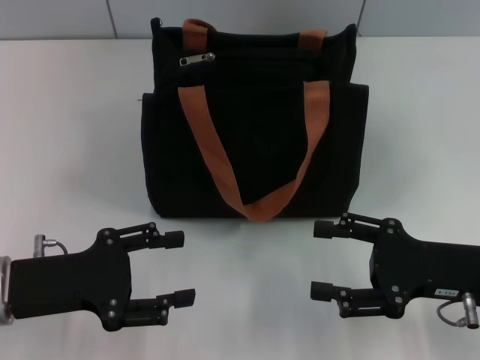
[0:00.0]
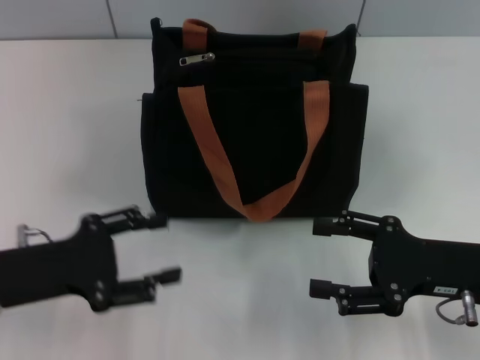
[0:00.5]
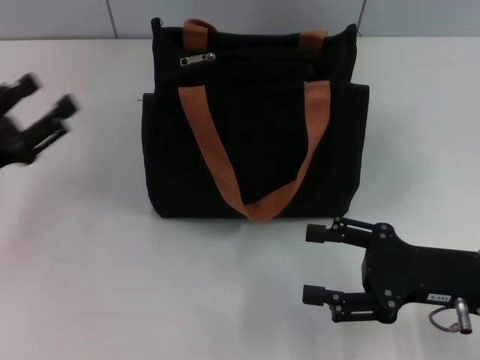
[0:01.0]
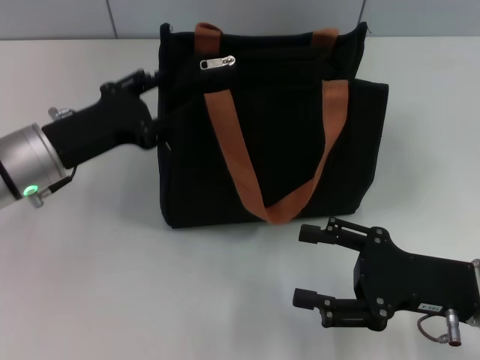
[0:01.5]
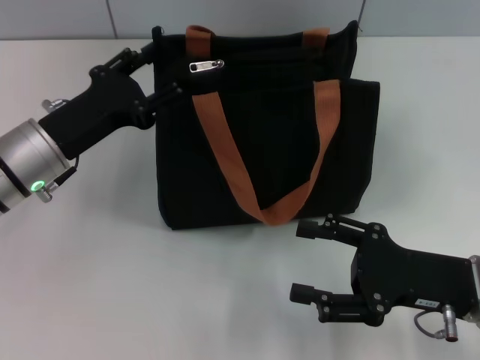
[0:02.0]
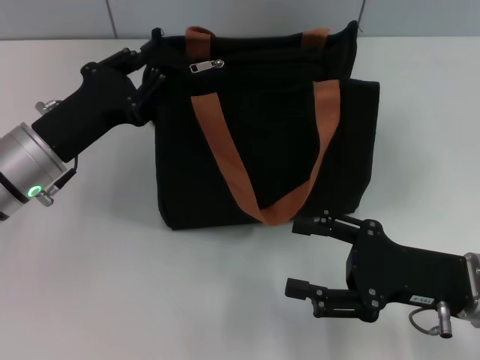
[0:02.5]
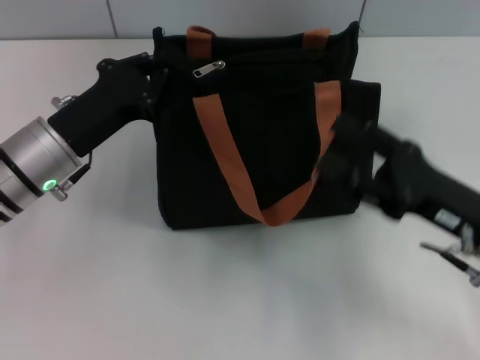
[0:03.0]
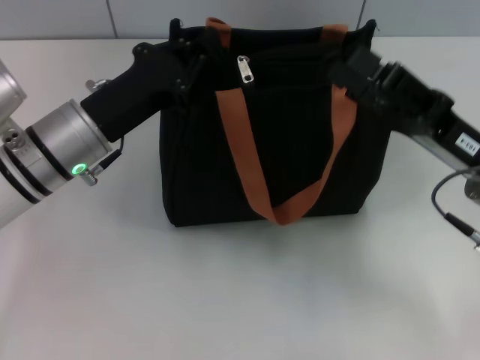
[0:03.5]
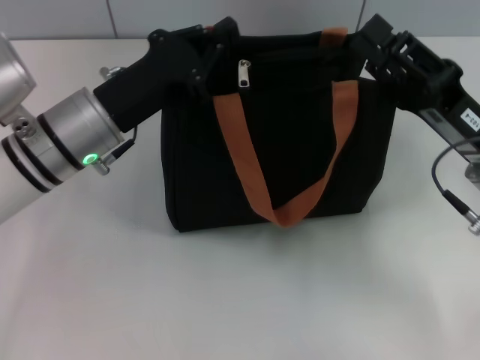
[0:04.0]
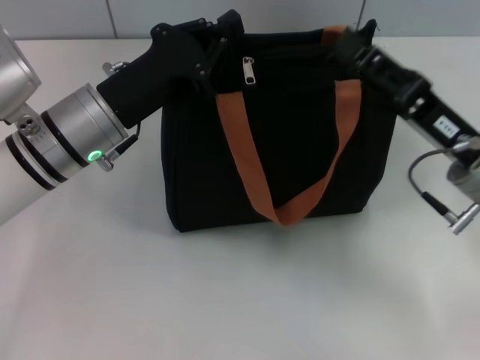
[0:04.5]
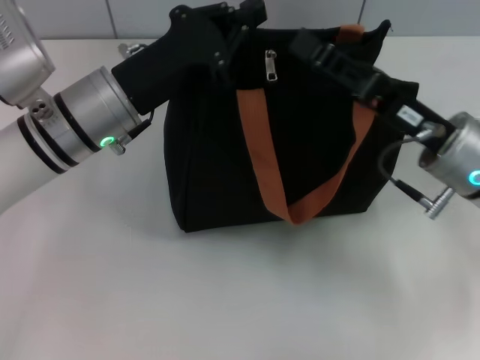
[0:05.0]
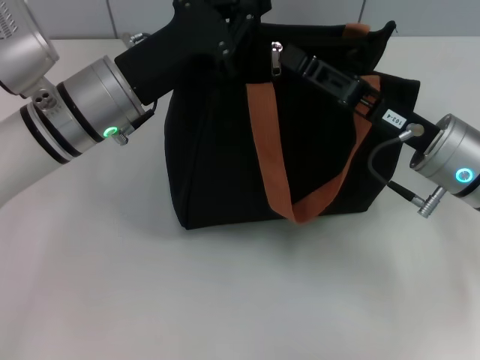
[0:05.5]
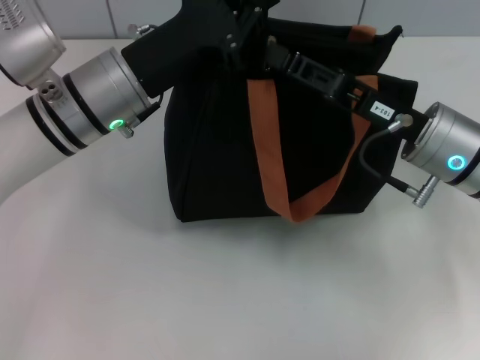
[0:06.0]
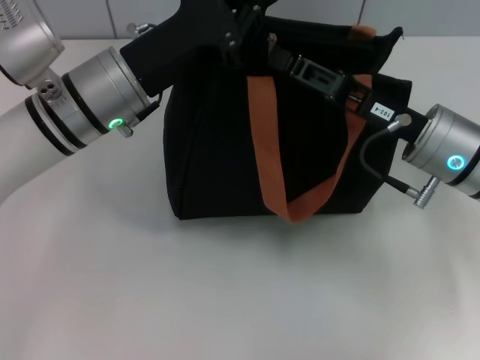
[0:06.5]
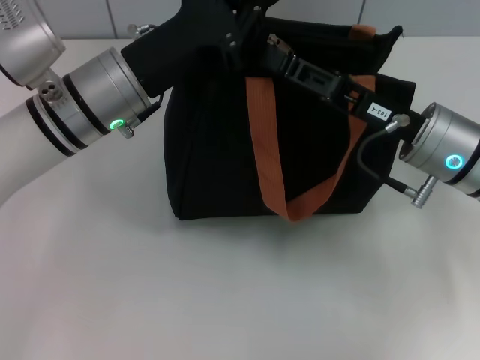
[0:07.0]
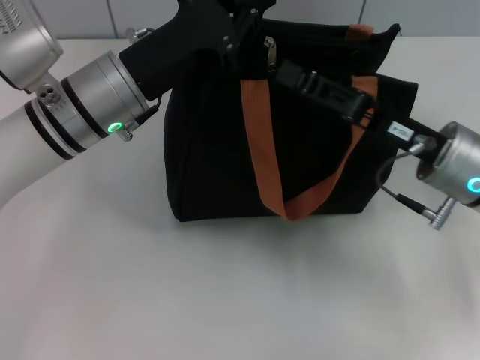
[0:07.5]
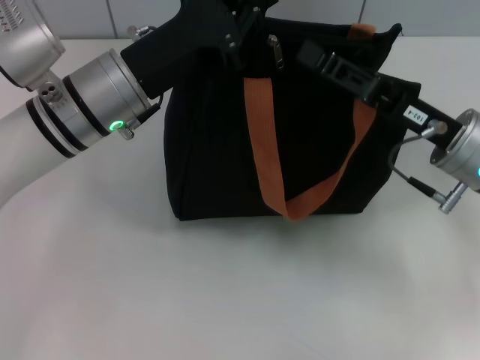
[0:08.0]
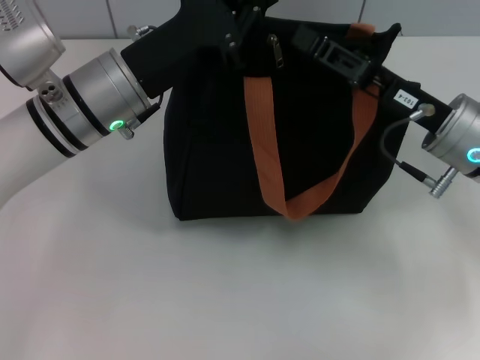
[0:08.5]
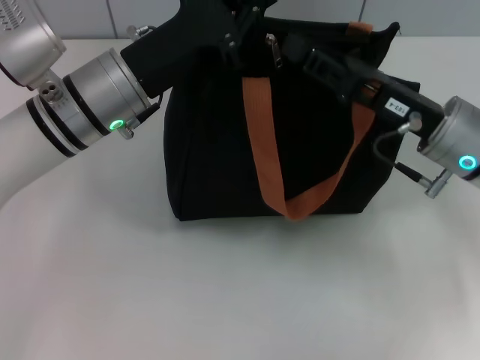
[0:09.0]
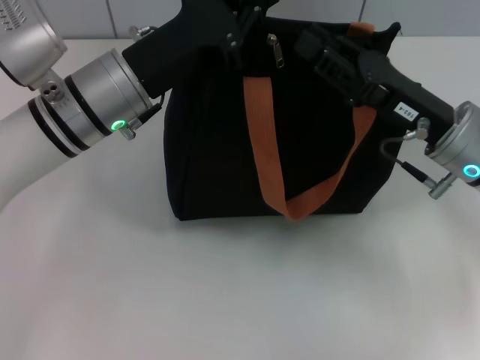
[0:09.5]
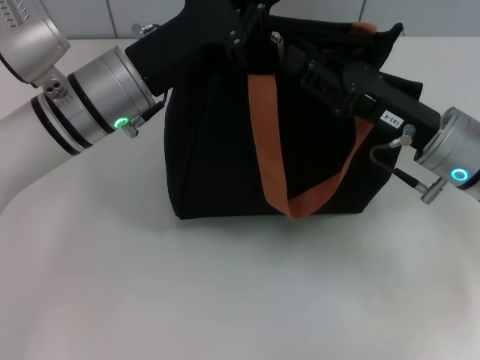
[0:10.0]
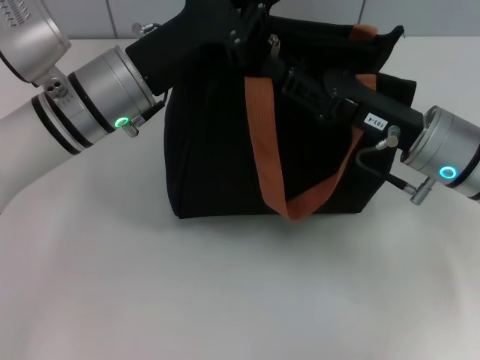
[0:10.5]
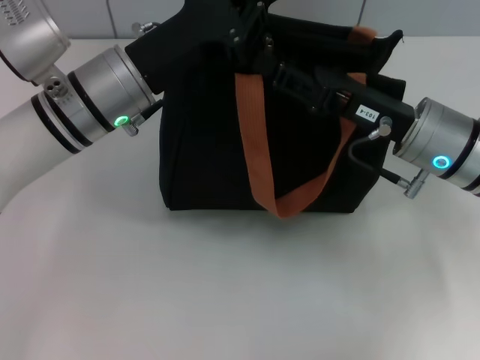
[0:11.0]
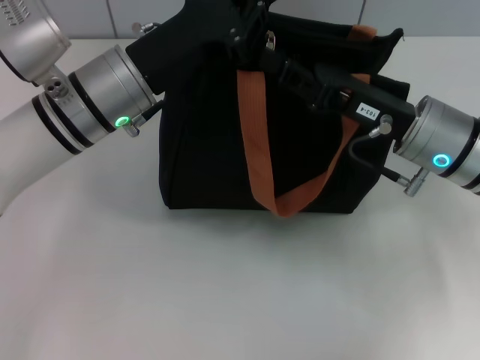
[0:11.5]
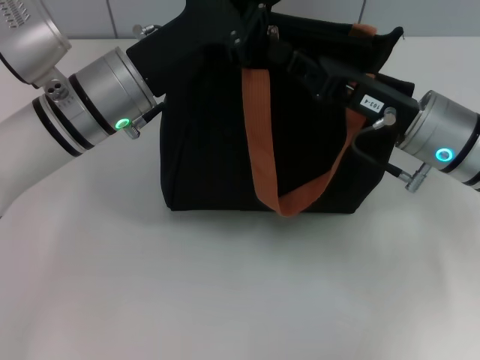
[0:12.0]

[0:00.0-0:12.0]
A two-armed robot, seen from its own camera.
0:00.0 to 0:02.0: The left gripper shifts approximately 10 cm forward.
0:02.0 to 0:04.0: The right gripper moves forward, some 5 cm. Meanwhile the left gripper heads to the right, covering some 5 cm, and closes.
0:04.0 to 0:06.0: The right gripper moves roughly 5 cm.
0:06.0 to 0:08.0: The grippers stay close to where they were, moving slightly.
0:10.0 to 0:12.0: The right gripper closes up.

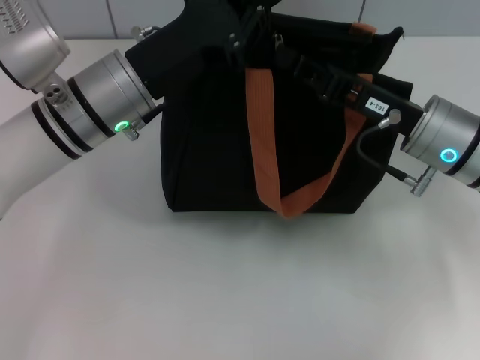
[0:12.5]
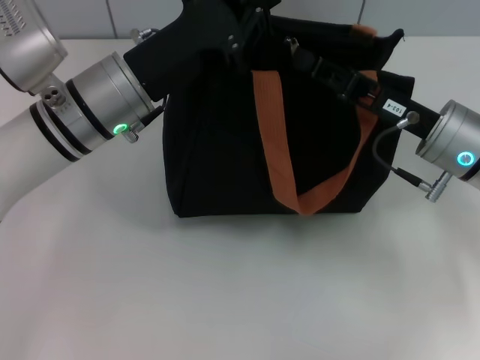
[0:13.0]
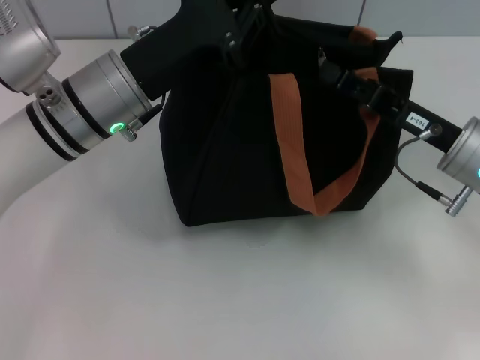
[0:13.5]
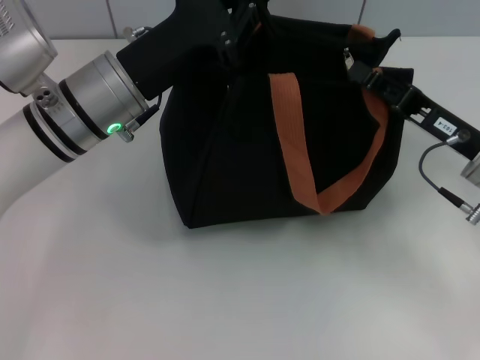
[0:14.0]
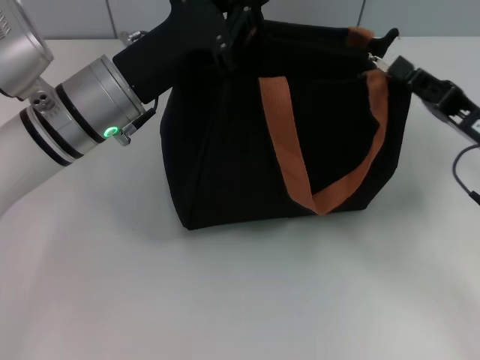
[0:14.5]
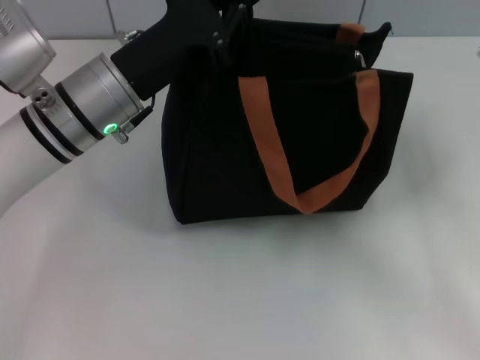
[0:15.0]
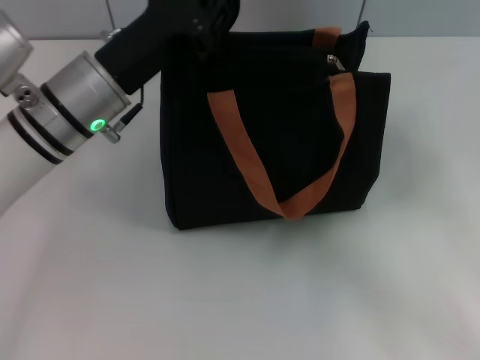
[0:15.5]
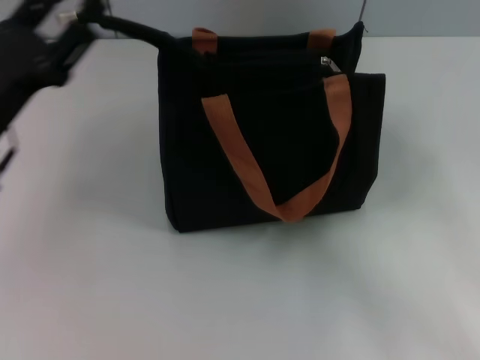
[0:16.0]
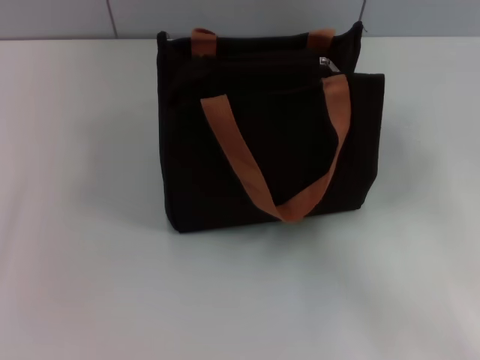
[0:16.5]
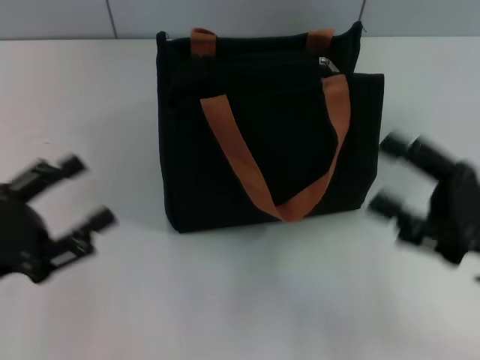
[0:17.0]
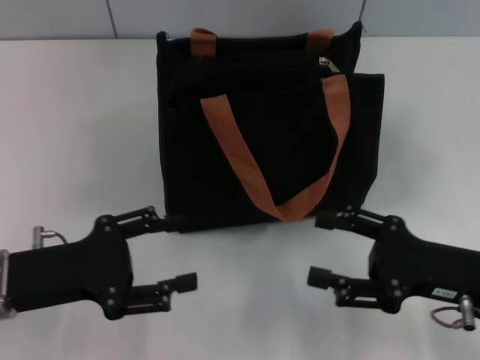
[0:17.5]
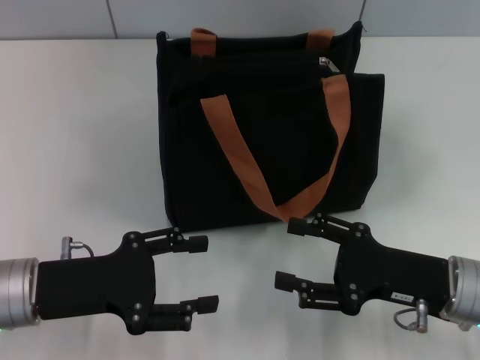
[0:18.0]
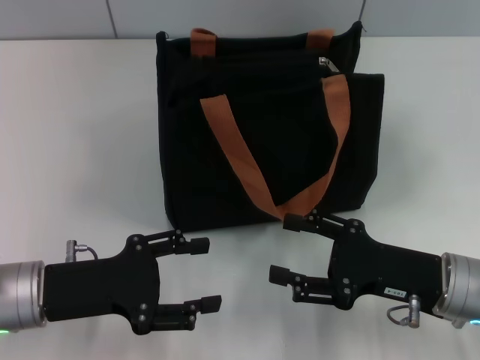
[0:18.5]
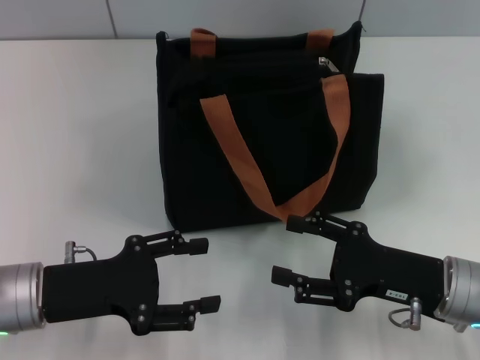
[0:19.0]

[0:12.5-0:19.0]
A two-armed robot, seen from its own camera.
Step, 0:12.5 to 0:14.5: Pull up the zipper with your right hand.
Step, 0:15.0 to 0:16.0: Grab the zipper with your left hand.
0:12.5 to 0:14.5: The right gripper travels to the right by some 10 cm.
0:14.5 to 0:17.0: The left gripper travels backward and to the left by approximately 20 cm, and opens its fingers, while the right gripper shifts approximately 10 cm backward, and opens its fingers.
0:17.0 to 0:19.0: The left gripper is displaced to the right by some 5 cm, while the right gripper is displaced downward and to the left by approximately 5 cm.

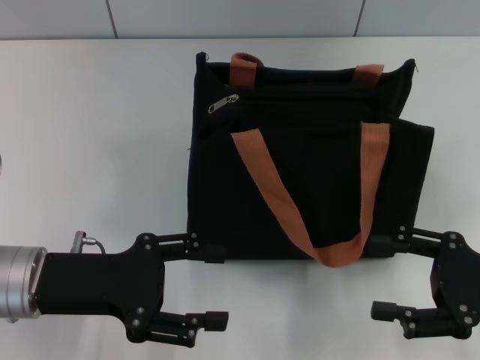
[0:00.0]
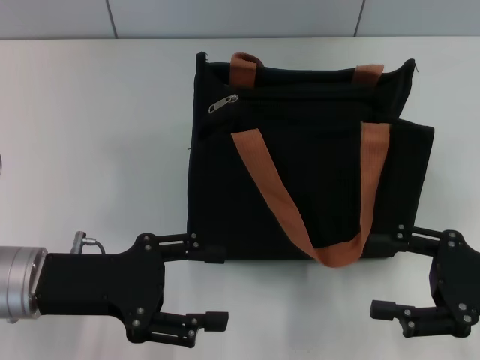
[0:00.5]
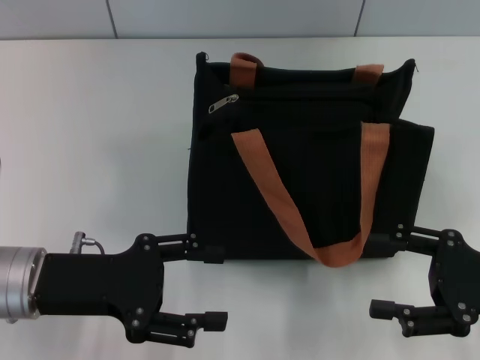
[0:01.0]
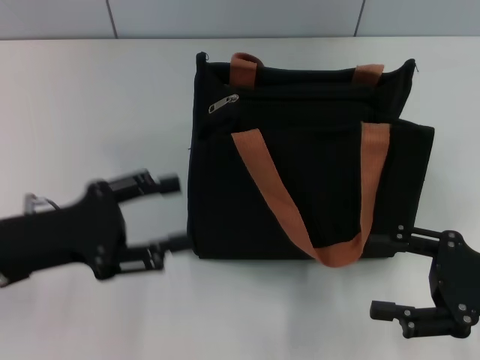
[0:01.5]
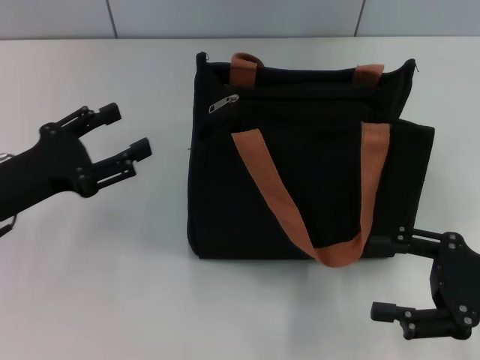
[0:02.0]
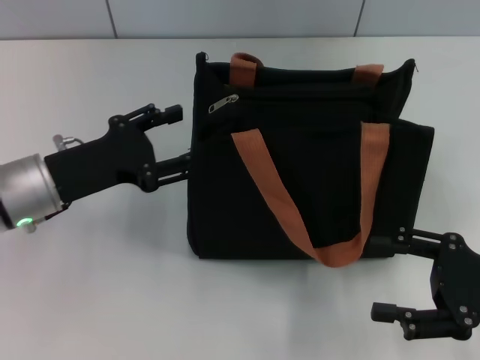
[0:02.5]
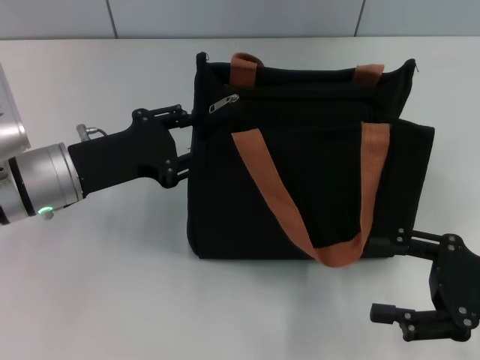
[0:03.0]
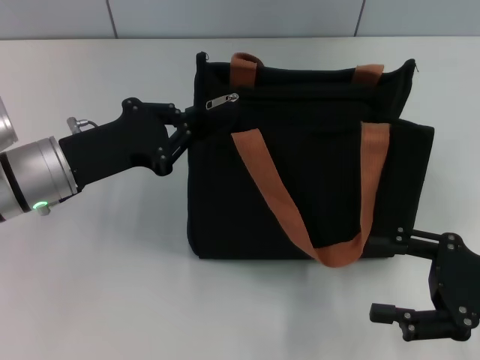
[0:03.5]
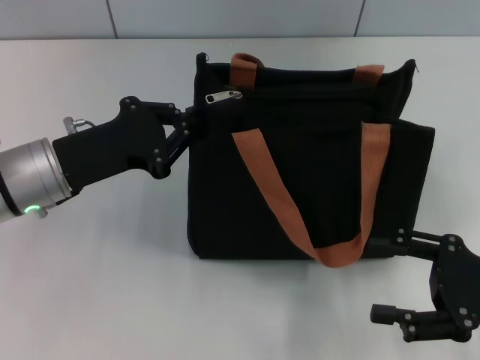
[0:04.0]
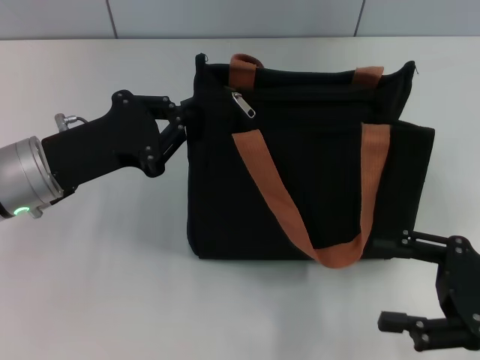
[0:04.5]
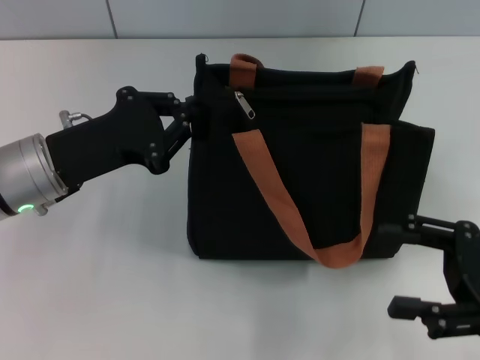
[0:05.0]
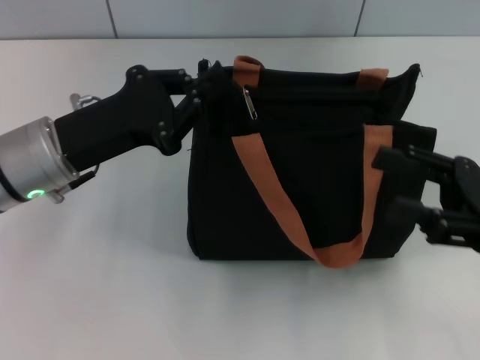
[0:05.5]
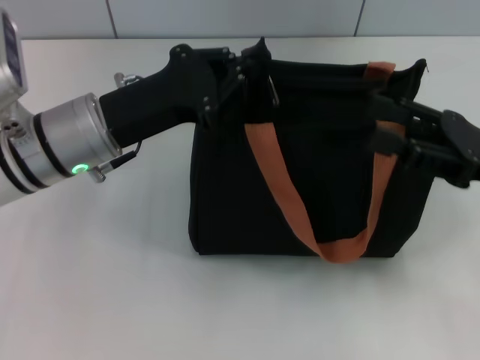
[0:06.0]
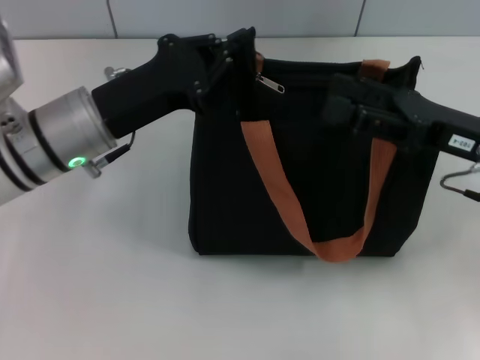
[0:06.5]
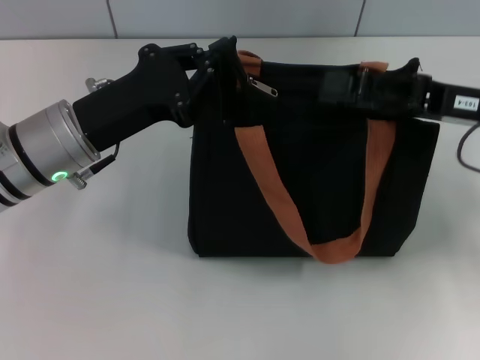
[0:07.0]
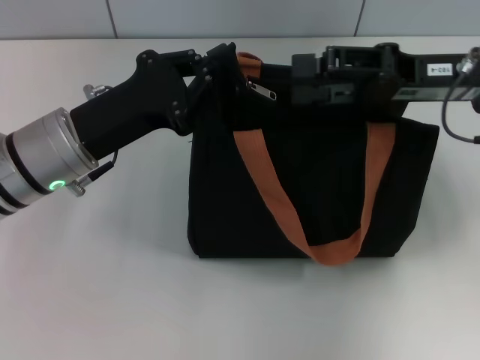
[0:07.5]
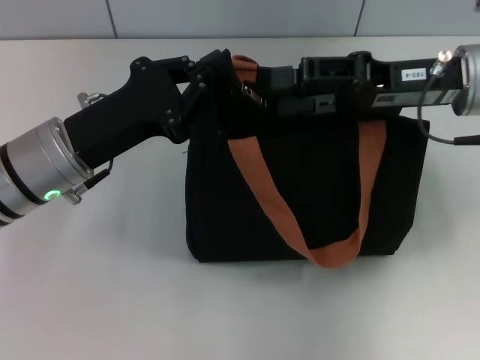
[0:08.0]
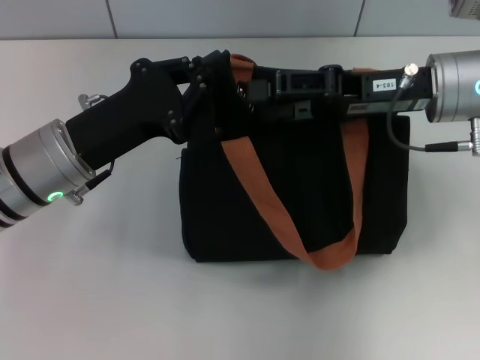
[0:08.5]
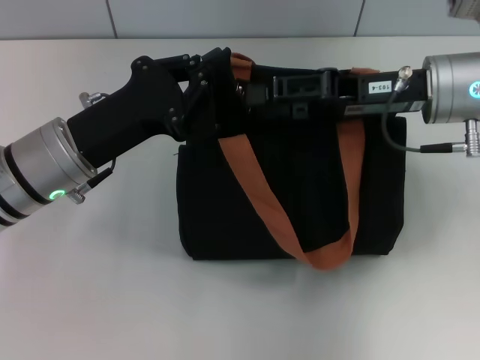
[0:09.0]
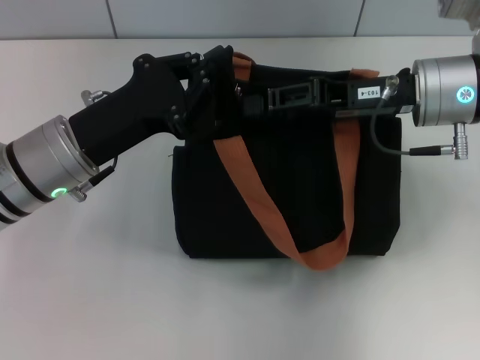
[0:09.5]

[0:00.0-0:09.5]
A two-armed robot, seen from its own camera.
0:00.0 to 0:02.0: The left gripper heads to the left, covering roughly 5 cm.
0:02.0 to 0:04.0: The left gripper moves to the right, some 5 cm, and closes up.
0:05.5 to 0:07.5: The right gripper goes roughly 15 cm forward, upward and to the left.
0:07.5 to 0:09.5: The right gripper closes.
